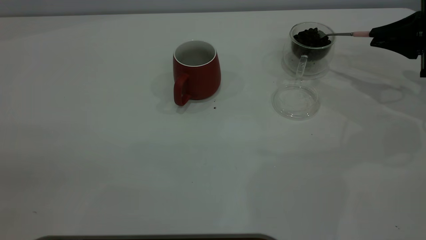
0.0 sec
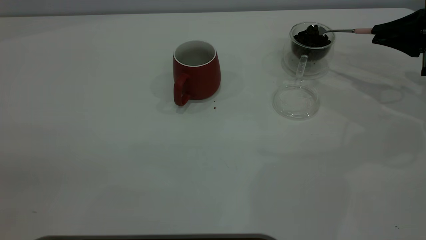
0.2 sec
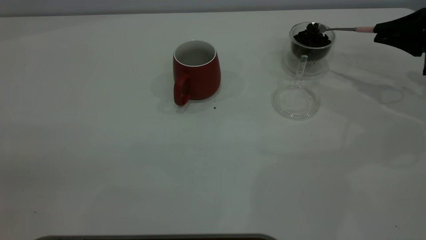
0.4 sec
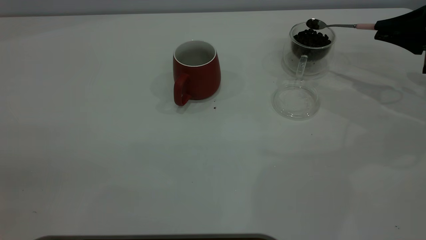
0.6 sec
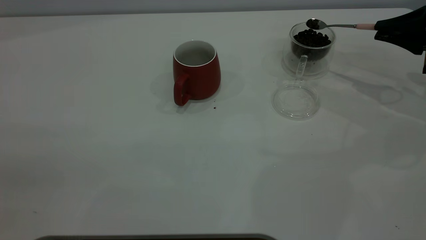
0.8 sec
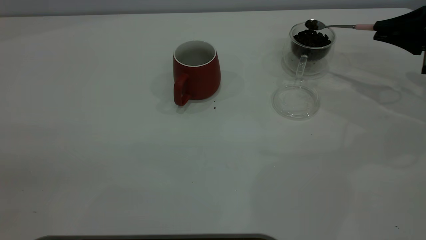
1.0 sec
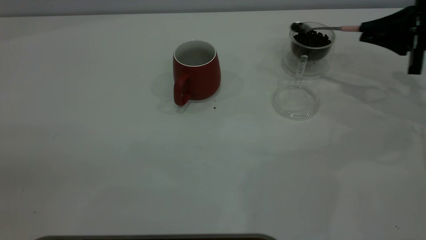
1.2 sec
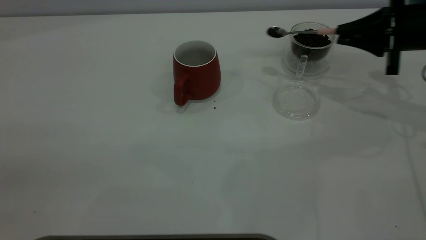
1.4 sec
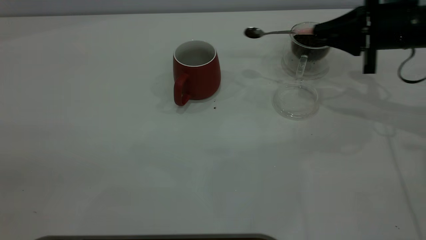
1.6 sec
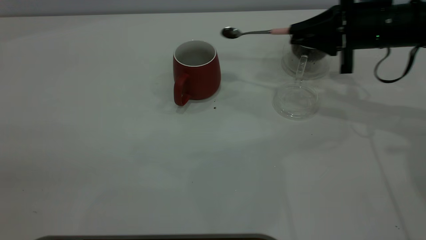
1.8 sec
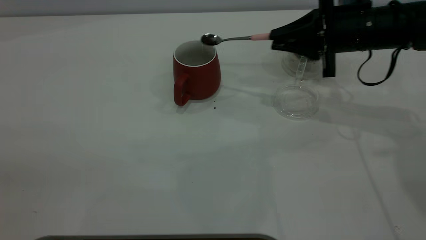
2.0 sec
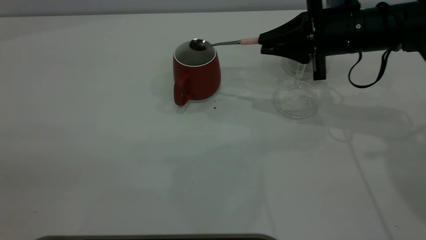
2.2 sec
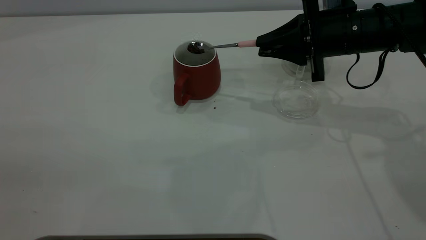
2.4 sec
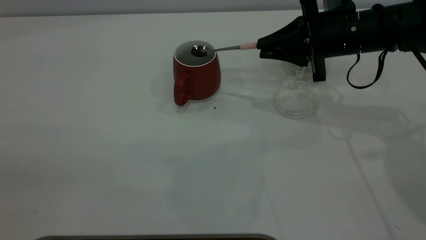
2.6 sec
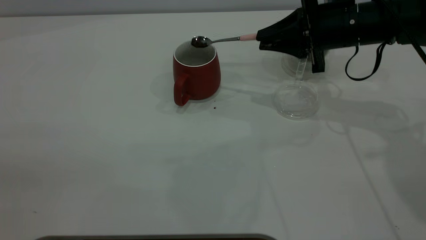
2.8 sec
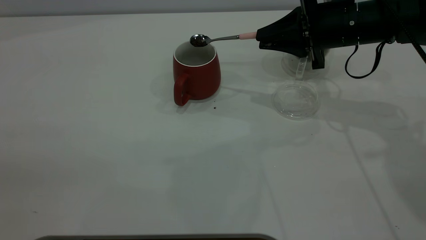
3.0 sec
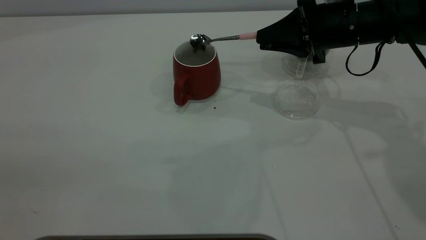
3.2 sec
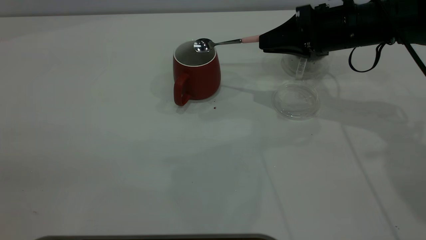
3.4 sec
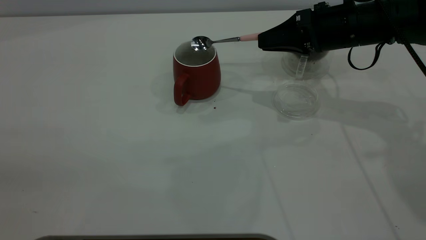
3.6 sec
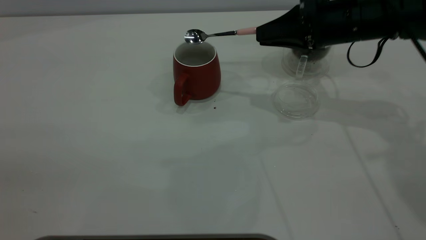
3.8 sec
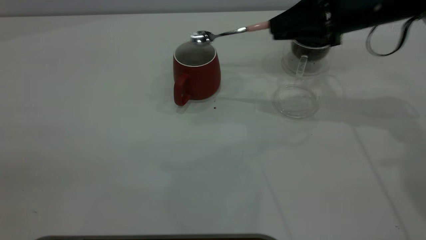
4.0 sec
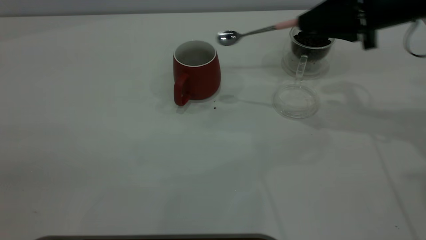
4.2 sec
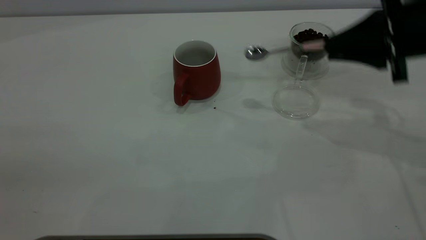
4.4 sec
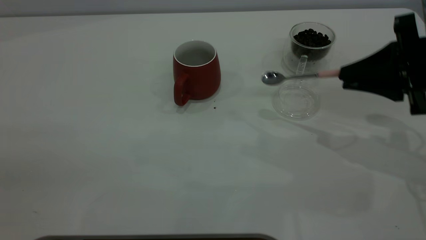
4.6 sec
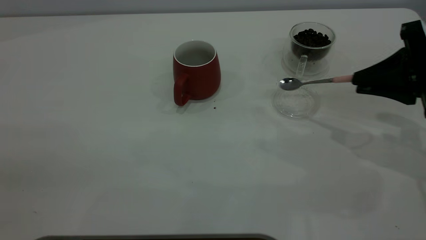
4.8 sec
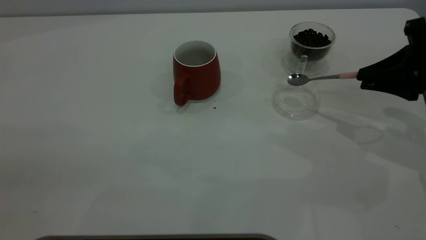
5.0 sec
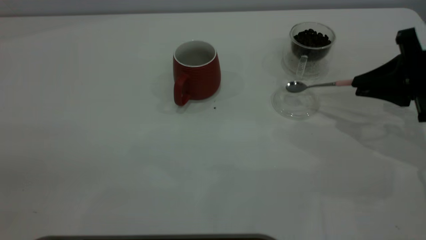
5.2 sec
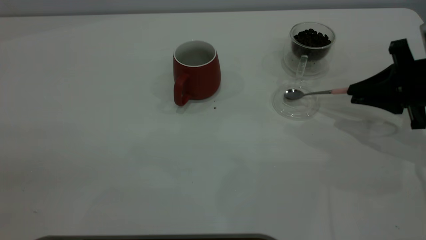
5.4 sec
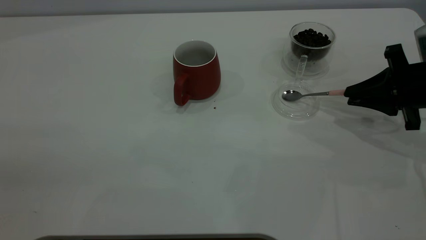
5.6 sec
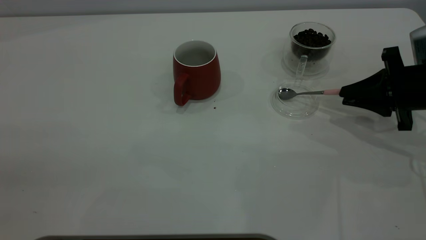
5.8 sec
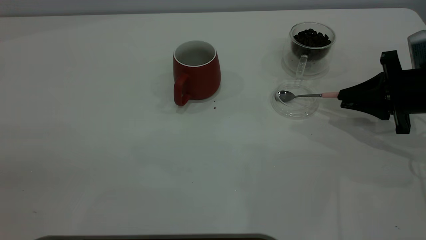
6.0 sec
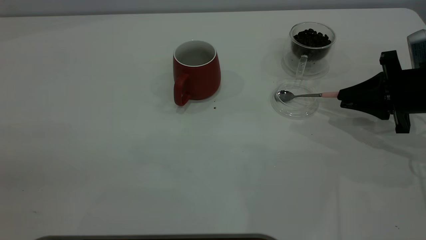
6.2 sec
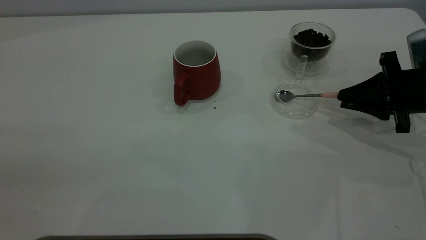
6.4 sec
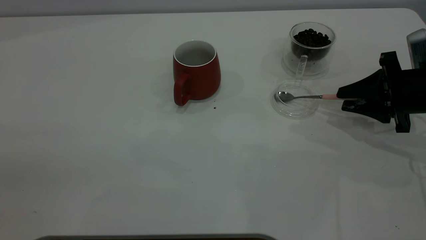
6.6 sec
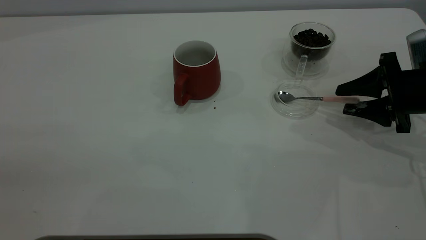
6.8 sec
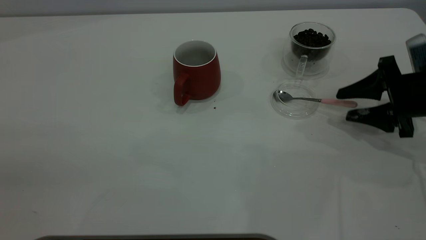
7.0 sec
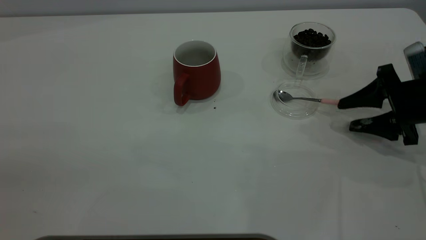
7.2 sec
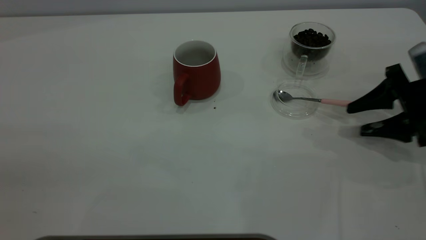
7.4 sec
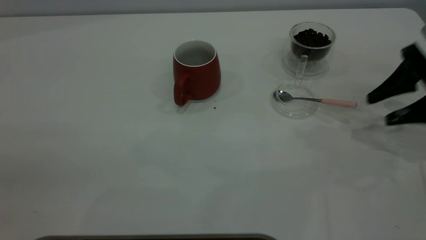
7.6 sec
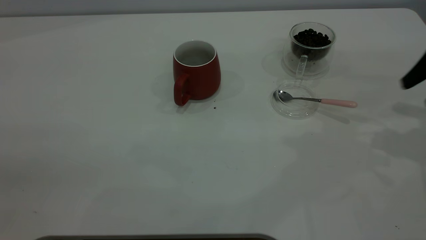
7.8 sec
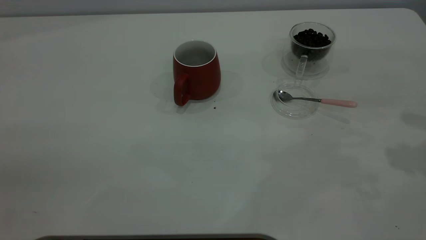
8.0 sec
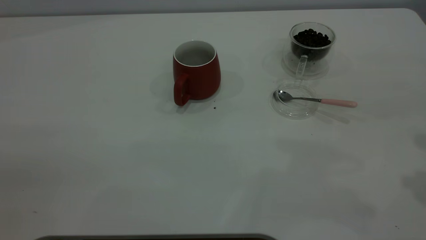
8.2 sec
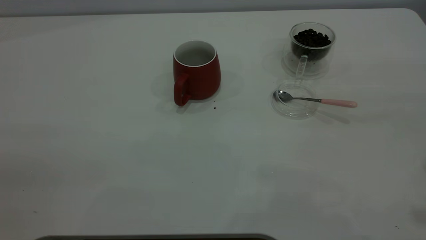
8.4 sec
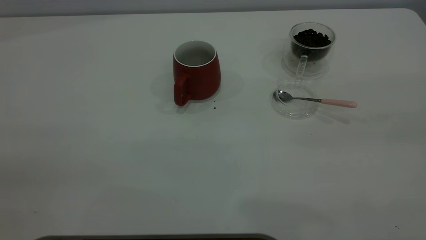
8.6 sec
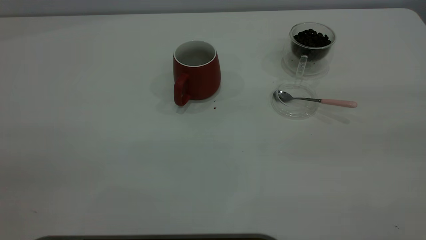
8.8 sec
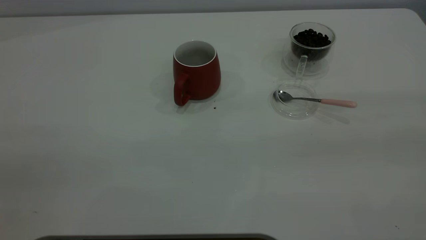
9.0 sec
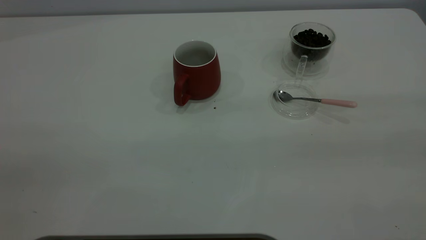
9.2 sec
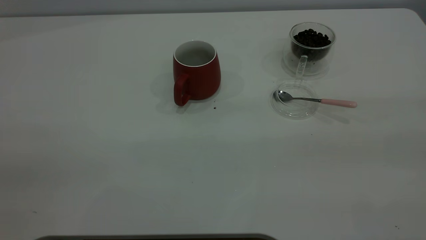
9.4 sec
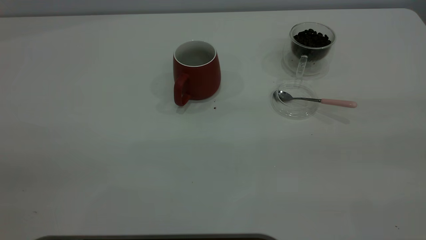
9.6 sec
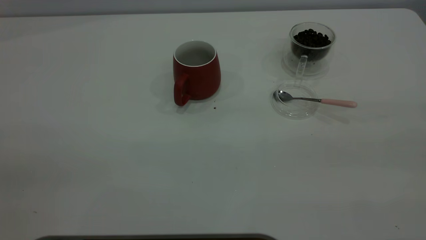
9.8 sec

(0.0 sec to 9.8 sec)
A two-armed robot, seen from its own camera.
Task of the whole recording: the left gripper place the red cup in the center of the table, the right gripper take the pink spoon from the cup lid and scoop out the coffee beans from the coffee cup and put them into the red cup, the right gripper put the spoon back into the cup lid.
Step, 0.0 sec - 4.0 sec: Scoop a spoonful of beans into the cup.
Step, 4.2 sec - 7.6 sec: Place the spoon back in its original place.
0.0 sec - 1.4 sec: The right gripper travels to the left by about 5 cm.
1.4 sec - 2.8 sec: The right gripper travels to the left by about 10 cm.
2.8 sec - 4.2 sec: The right gripper moves to the right and upward, some 10 cm.
4.2 sec - 5.6 sec: The right gripper heads downward and to the right, covering roughly 15 cm.
5.6 sec - 7.0 sec: The right gripper opens up.
7.0 sec - 8.4 sec: The right gripper goes approximately 30 cm upward and backward.

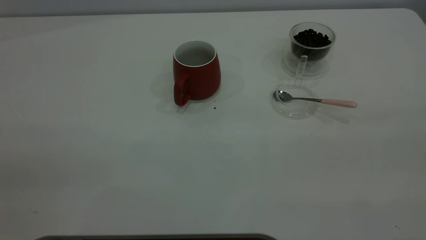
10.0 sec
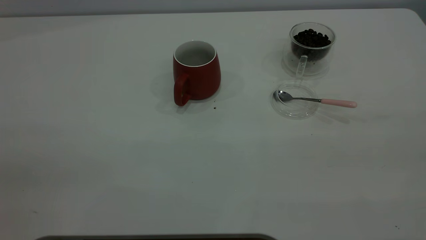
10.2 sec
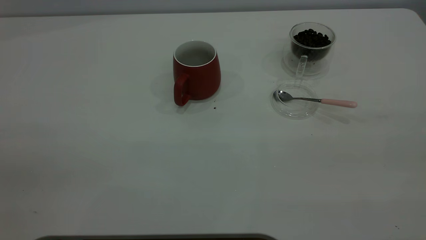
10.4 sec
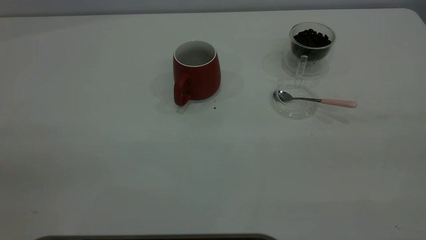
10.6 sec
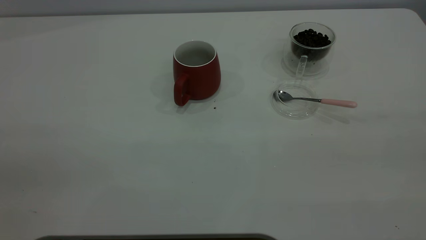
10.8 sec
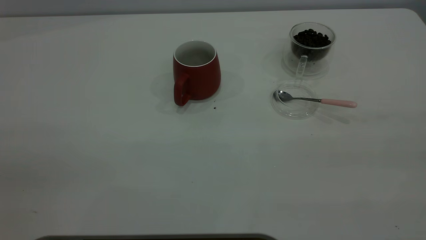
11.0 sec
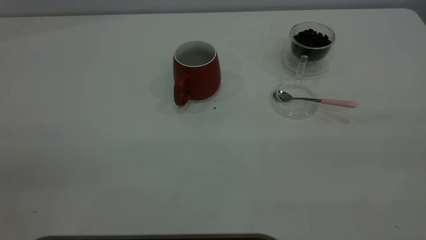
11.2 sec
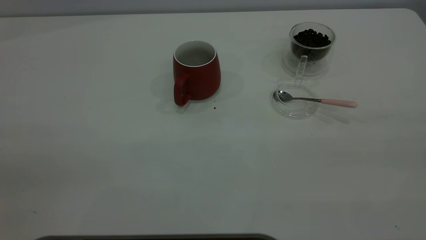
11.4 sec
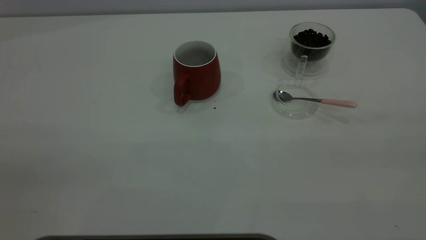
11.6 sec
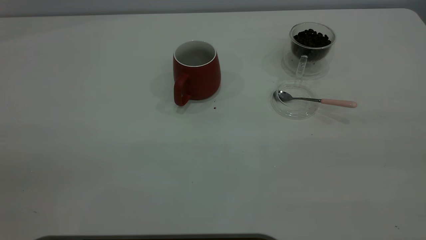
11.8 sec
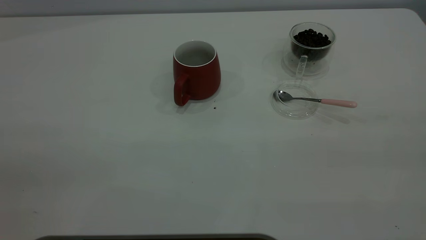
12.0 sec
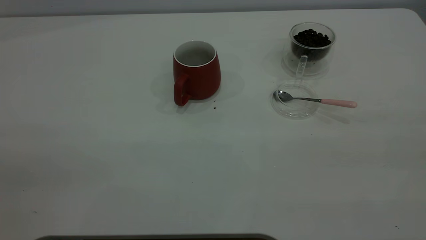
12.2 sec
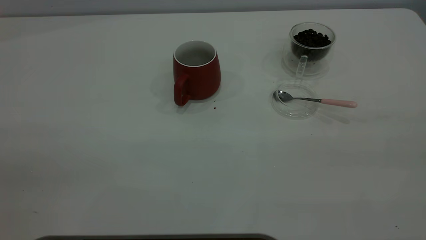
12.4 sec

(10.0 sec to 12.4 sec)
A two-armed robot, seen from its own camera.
Task of the whole recording: the left gripper place the red cup in the center of the table, the right gripper take the pink spoon from the cup lid and scoop out the coffee beans from the coffee cup and put them into the red cup, the right gripper put the spoon back into the cup lid.
11.2 sec - 12.4 sec: Both grippers stay put.

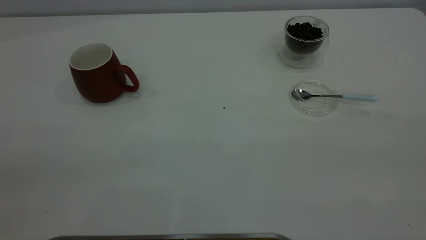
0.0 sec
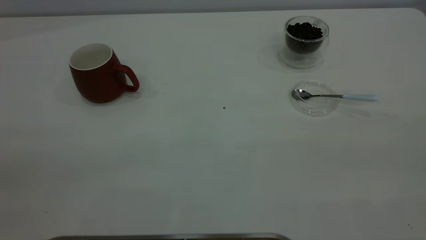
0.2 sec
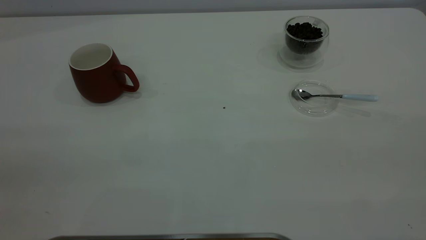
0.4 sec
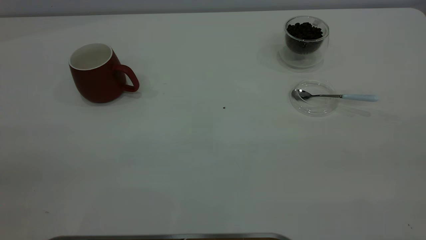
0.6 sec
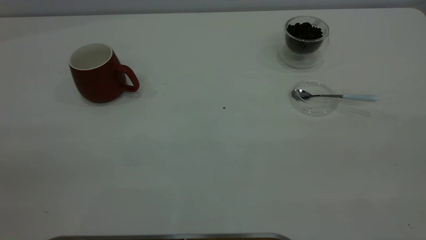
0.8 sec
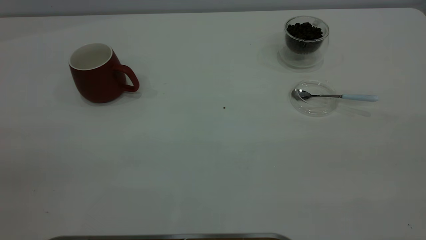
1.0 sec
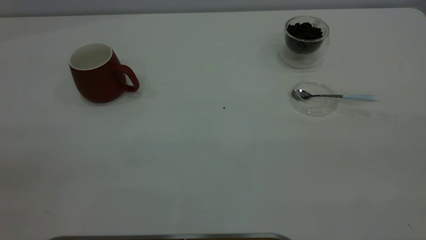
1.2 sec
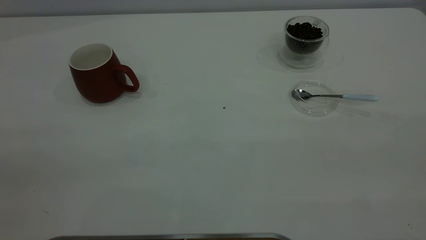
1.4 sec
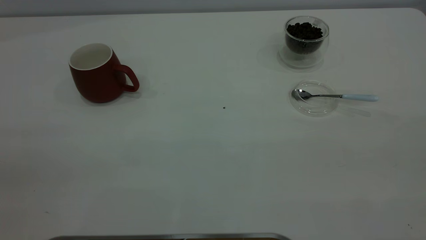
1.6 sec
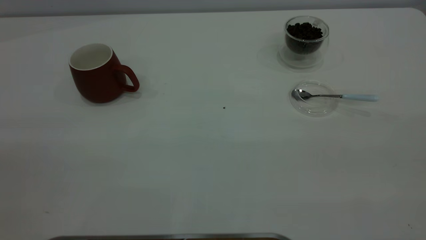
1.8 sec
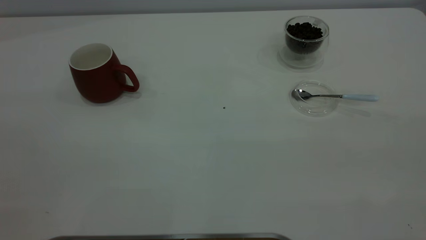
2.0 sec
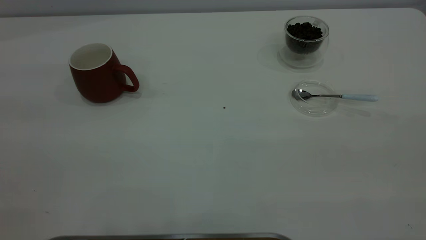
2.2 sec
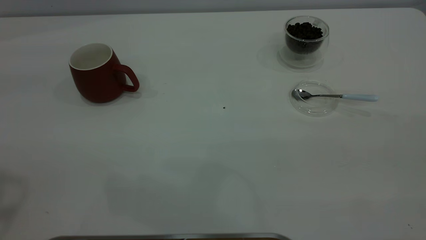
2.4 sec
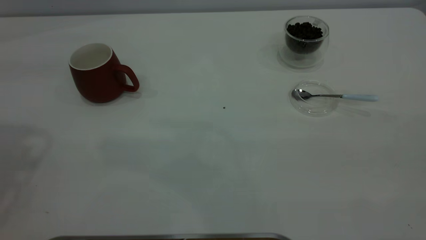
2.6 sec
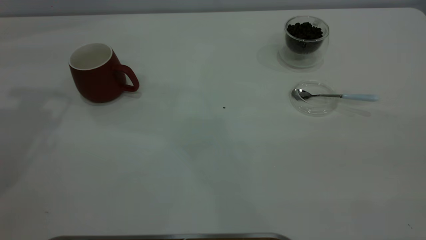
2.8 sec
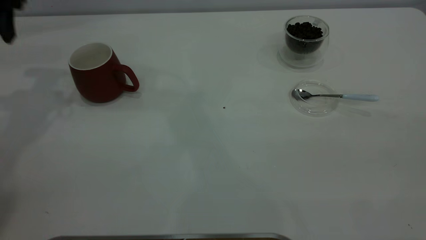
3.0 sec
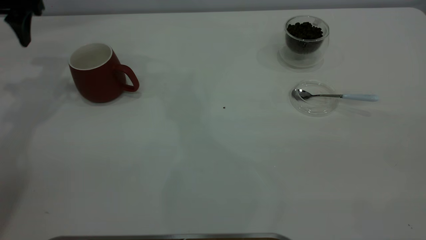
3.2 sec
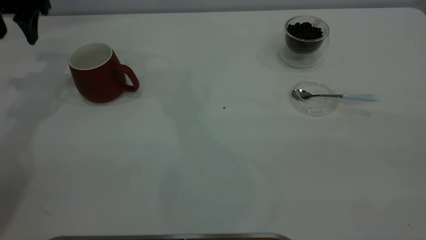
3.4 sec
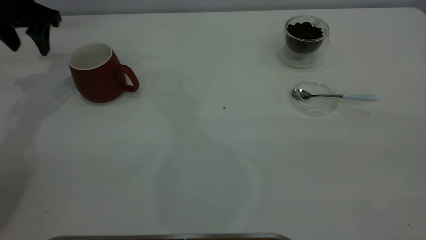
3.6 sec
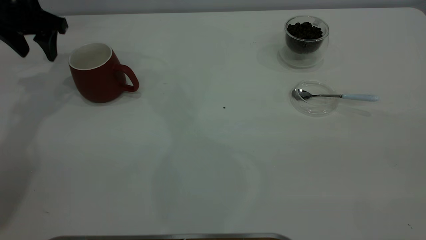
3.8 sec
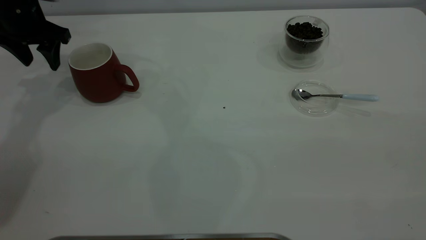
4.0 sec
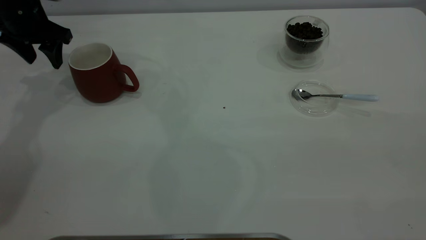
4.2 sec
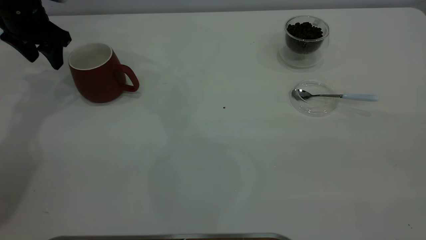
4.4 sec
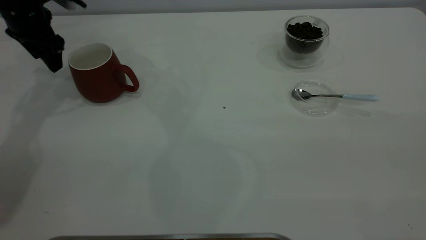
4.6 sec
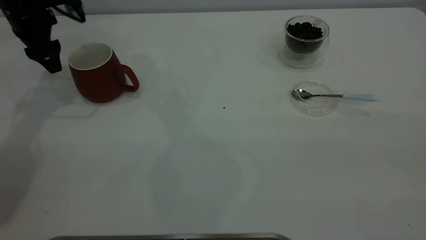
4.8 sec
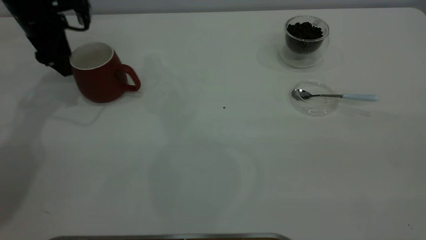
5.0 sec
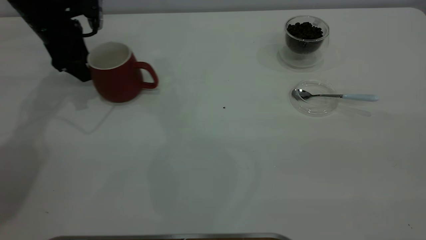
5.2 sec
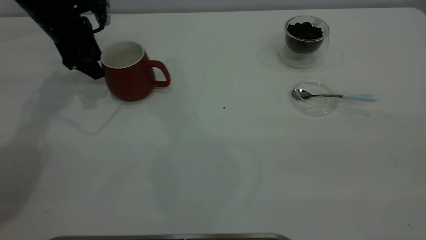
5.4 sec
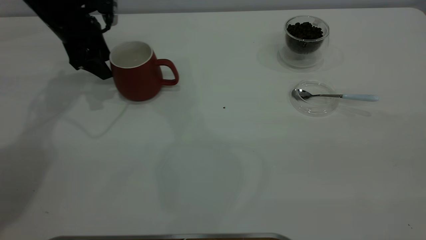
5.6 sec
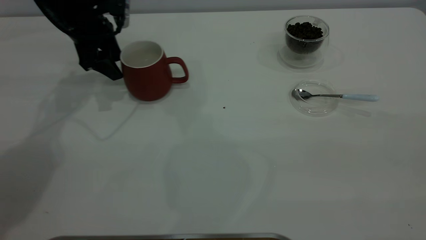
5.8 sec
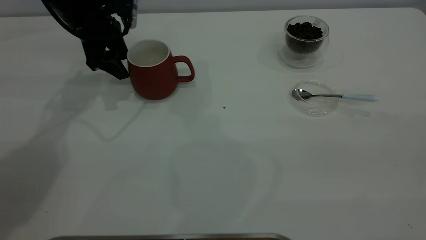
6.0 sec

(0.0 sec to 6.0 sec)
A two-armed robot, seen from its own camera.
Task of the whole recording: the left gripper place the red cup in the center of the table, the right gripper take the blue spoon from the cup lid and scoop out the coffee beans from the coffee cup and put them into the red cup, the right gripper put the spoon back into the cup lid.
0.0 sec - 1.6 sec: The two grippers keep their place.
1.6 sec - 3.0 sec: The left gripper travels forward by roughly 40 cm.
3.0 sec - 4.4 sec: The left gripper is displaced downward and forward by approximately 10 cm.
4.4 sec - 6.0 sec: The left gripper shifts roughly 10 cm to the right.
